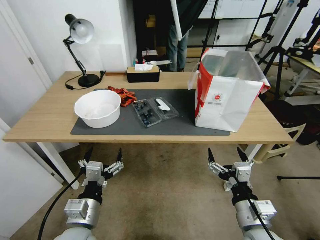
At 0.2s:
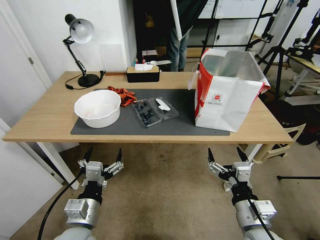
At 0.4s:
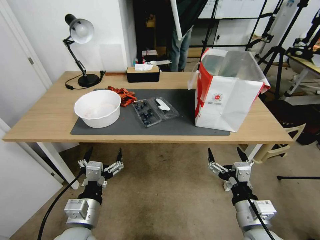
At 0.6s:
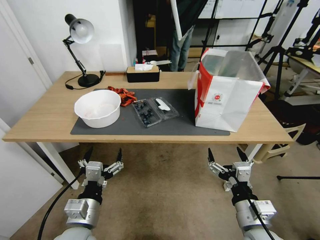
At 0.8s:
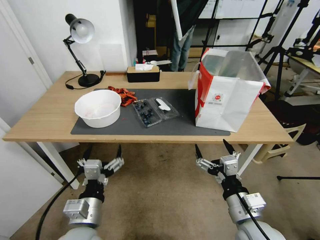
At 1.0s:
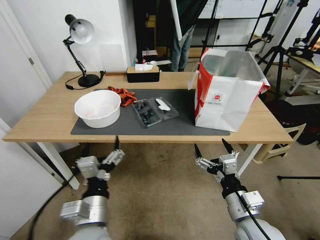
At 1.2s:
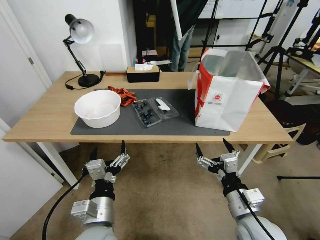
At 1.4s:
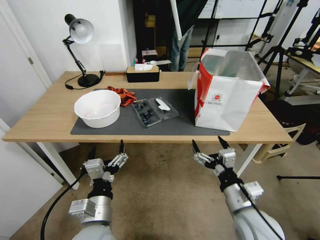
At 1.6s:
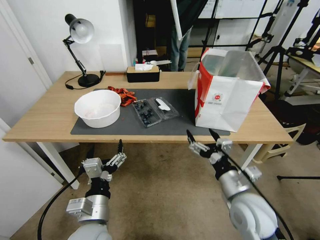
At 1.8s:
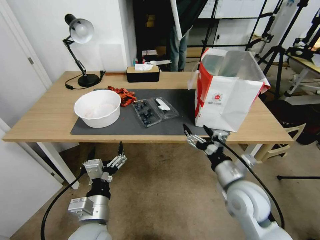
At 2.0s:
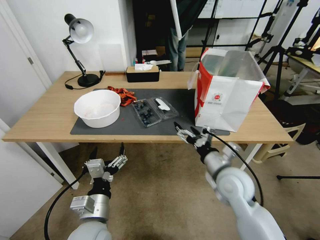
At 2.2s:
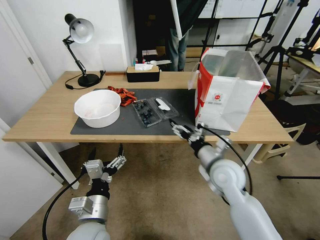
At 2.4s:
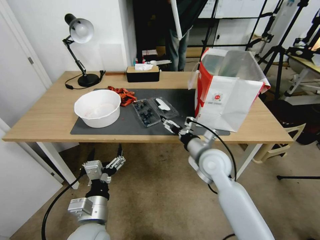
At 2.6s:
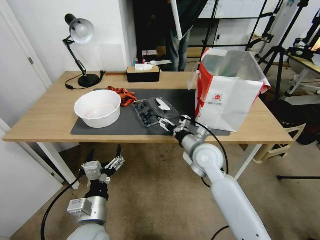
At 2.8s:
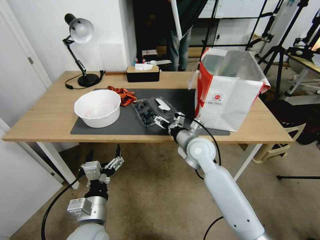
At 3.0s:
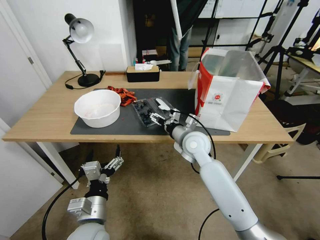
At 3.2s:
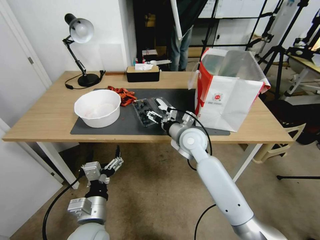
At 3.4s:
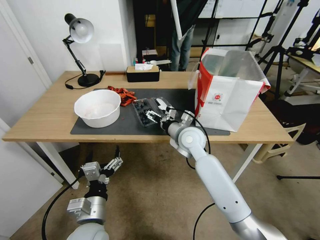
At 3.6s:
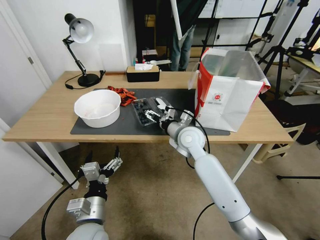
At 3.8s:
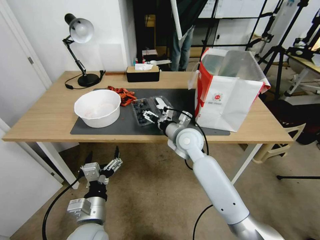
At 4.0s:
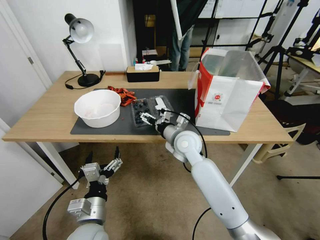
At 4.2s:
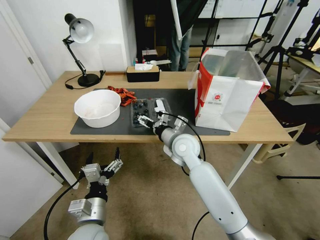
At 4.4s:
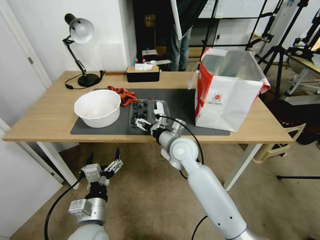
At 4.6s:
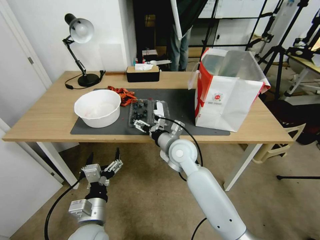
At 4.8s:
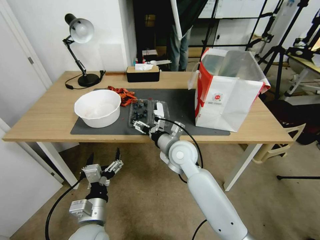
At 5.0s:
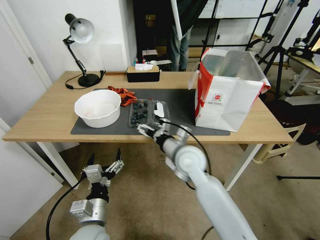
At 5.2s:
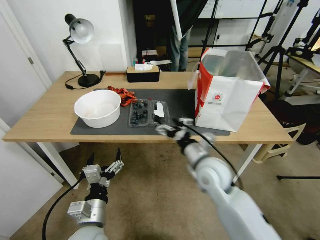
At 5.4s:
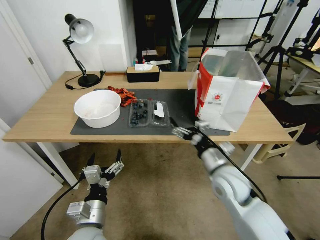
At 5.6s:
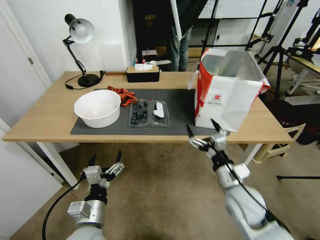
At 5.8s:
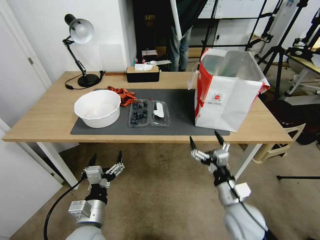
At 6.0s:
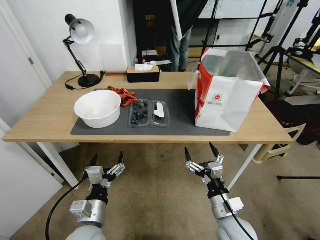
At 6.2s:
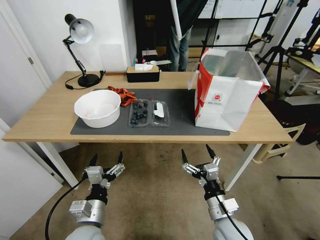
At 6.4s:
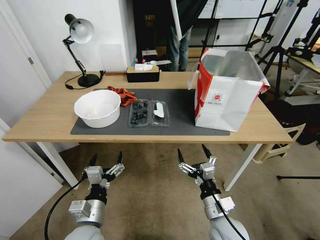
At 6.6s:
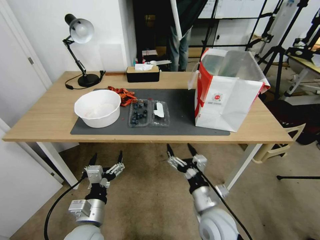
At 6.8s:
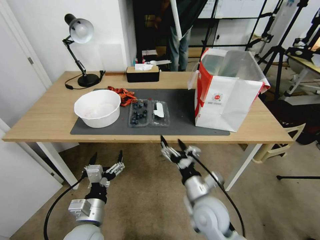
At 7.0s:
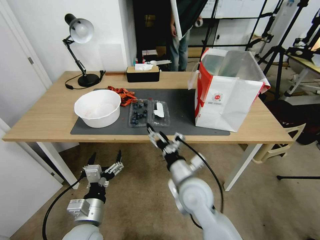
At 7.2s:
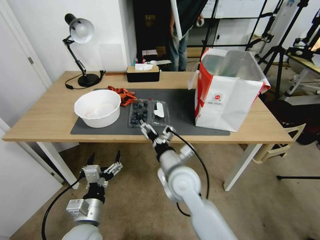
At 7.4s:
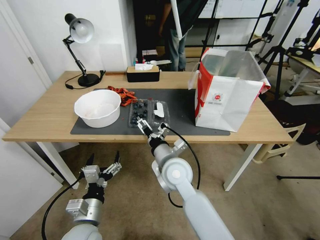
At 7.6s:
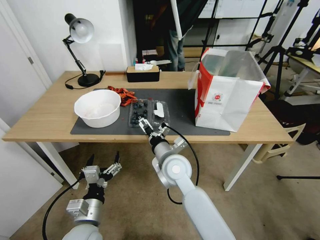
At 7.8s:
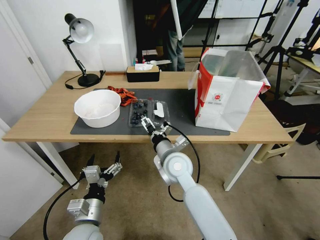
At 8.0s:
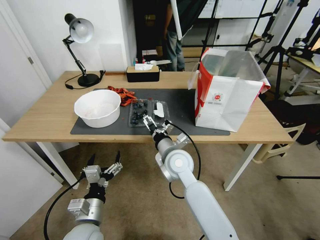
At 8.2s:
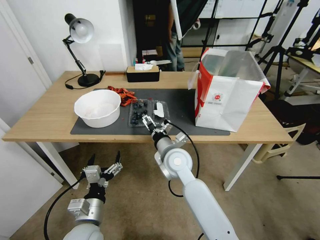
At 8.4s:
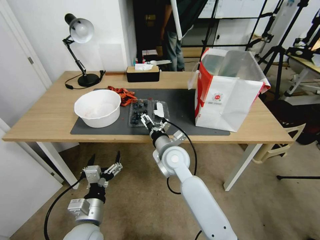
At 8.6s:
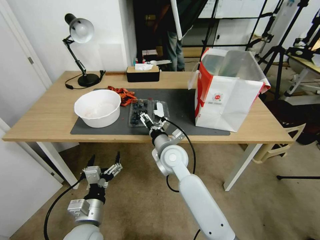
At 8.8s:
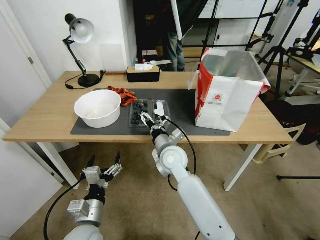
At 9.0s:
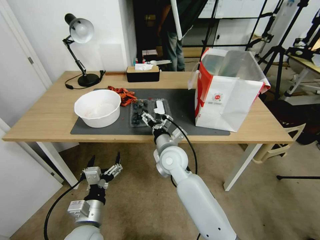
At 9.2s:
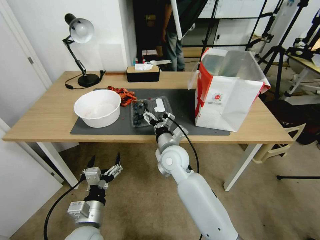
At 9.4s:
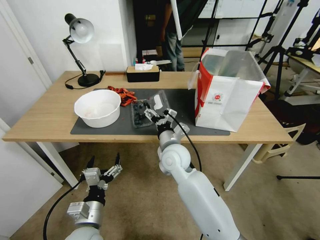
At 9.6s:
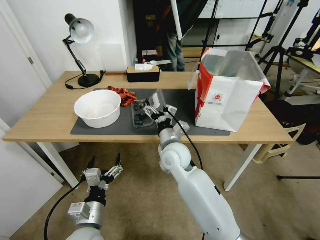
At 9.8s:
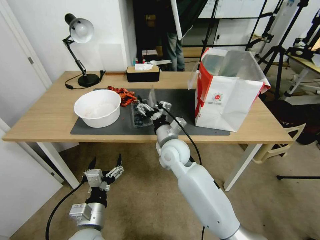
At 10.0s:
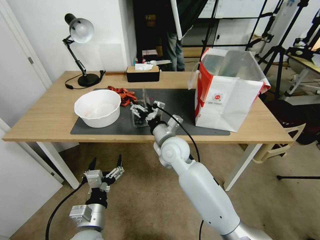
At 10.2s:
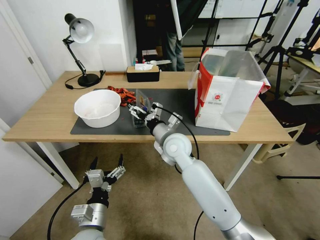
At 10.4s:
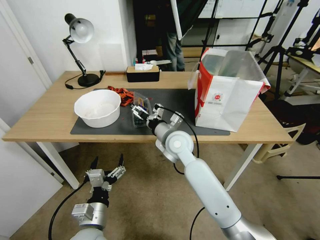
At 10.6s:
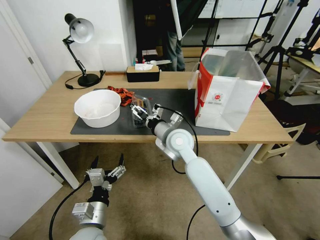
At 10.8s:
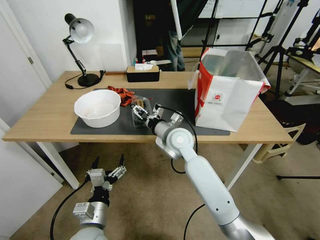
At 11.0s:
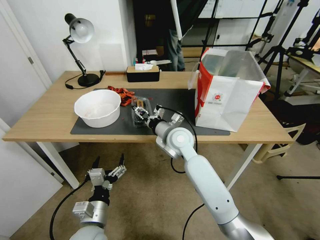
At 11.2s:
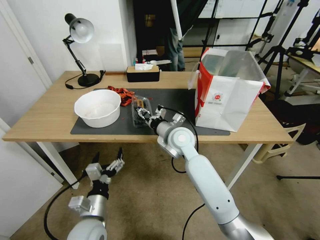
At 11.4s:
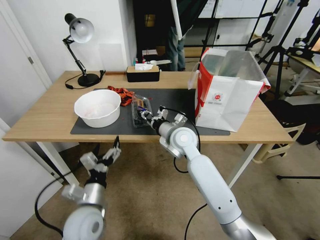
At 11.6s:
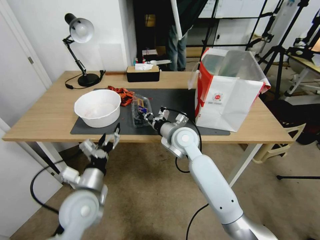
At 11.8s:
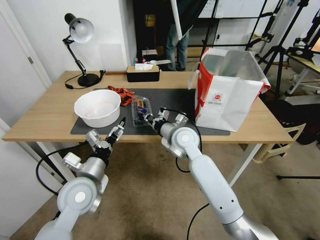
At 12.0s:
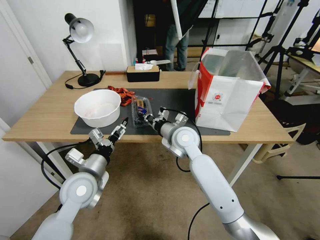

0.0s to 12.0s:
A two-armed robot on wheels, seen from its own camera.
Task of the whole recording: Close the takeout container lid, then place the container into the takeout bag.
1.6s to 3.0s: The right gripper moves forward and to the left, approximately 20 cm.
3.0s to 4.4s: There are only small adjustments of the grippers.
4.4s to 6.0s: The right gripper shifts some 25 cm backward, to the right and downward.
6.0s to 7.6s: The right gripper shifts about 25 cm to the left, forward and upward.
7.6s to 9.0s: There are only small adjustments of the grippers.
9.0s to 10.4s: The right gripper shifts by roughly 5 cm.
10.4s to 12.0s: The right gripper closes, while the left gripper heads forward and upward, covering some 15 cm.

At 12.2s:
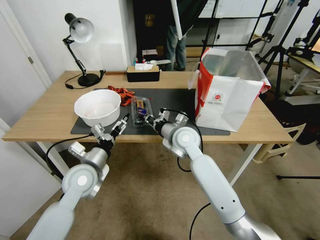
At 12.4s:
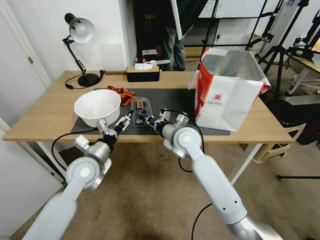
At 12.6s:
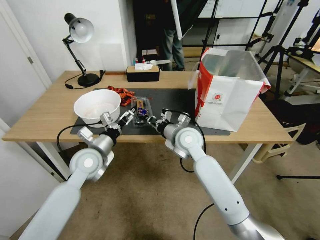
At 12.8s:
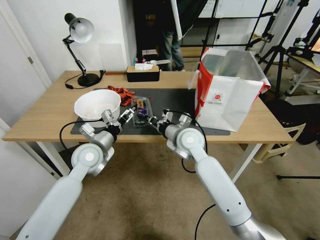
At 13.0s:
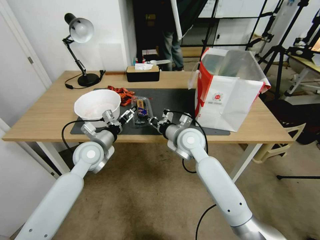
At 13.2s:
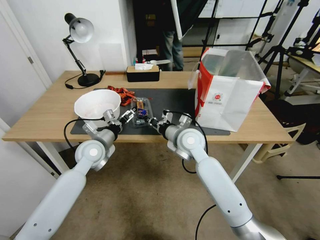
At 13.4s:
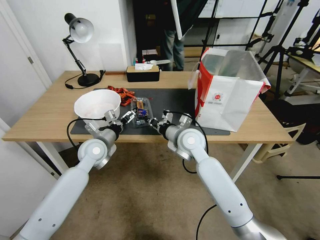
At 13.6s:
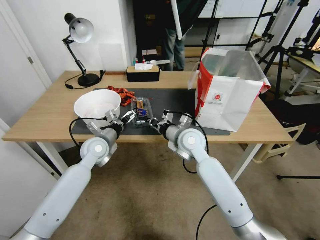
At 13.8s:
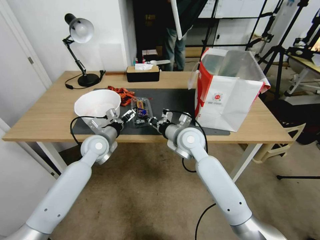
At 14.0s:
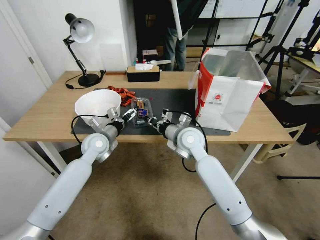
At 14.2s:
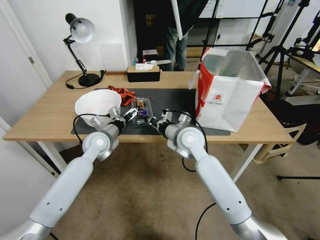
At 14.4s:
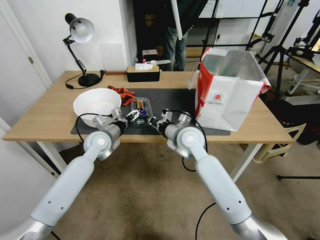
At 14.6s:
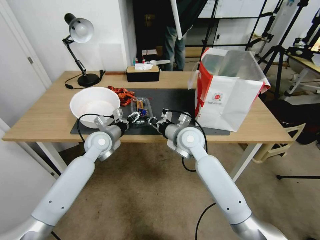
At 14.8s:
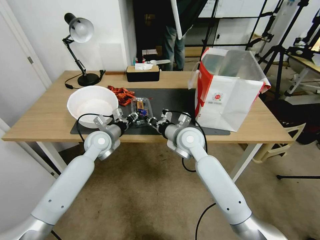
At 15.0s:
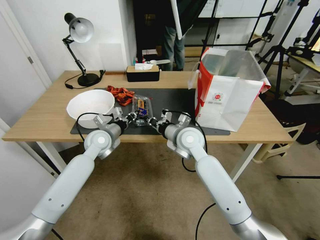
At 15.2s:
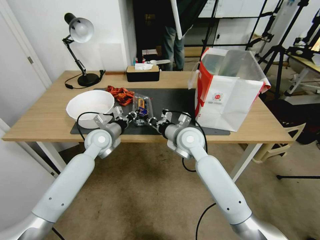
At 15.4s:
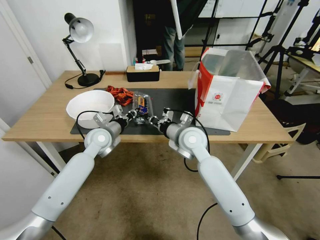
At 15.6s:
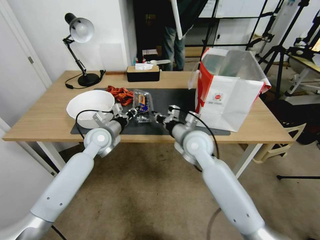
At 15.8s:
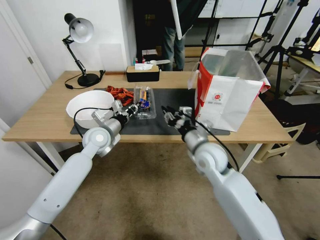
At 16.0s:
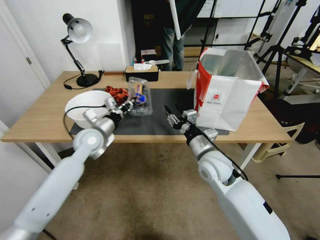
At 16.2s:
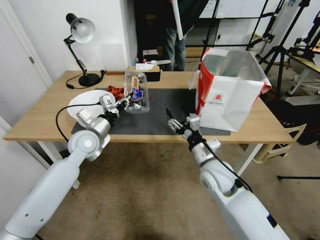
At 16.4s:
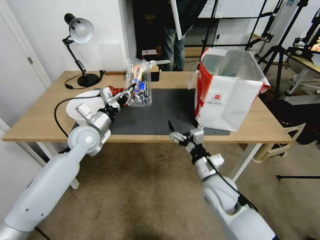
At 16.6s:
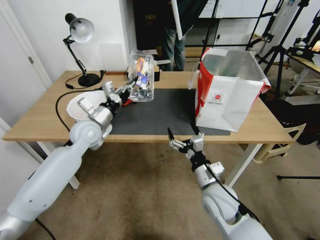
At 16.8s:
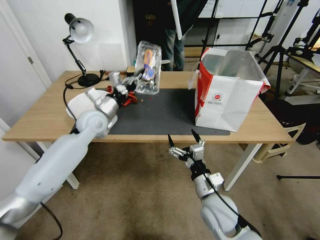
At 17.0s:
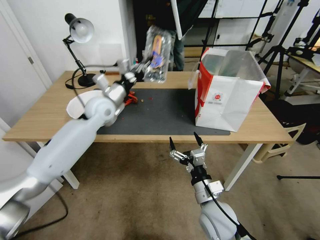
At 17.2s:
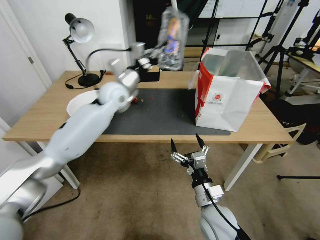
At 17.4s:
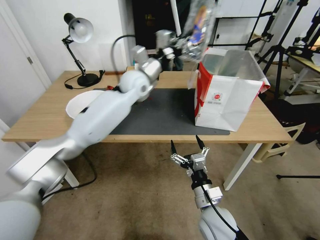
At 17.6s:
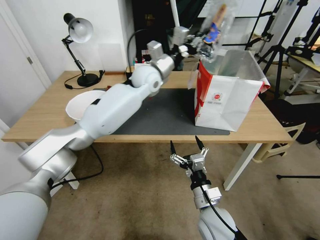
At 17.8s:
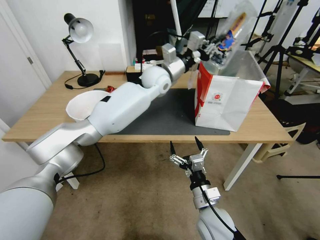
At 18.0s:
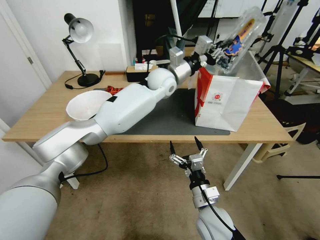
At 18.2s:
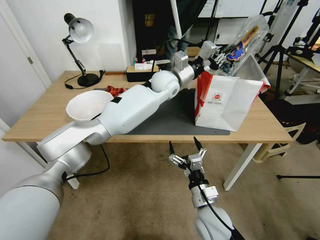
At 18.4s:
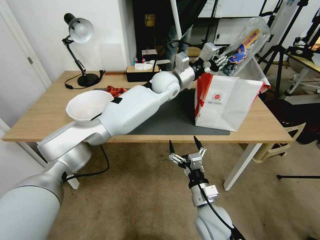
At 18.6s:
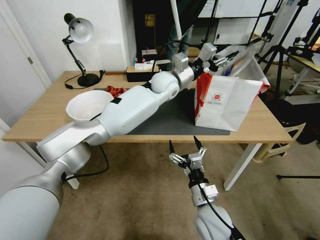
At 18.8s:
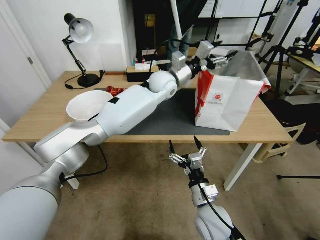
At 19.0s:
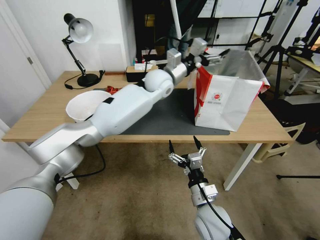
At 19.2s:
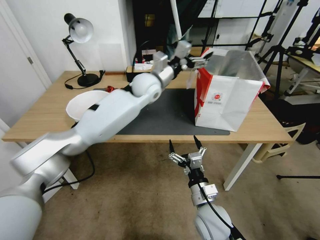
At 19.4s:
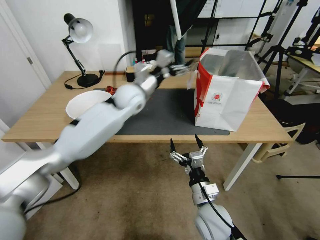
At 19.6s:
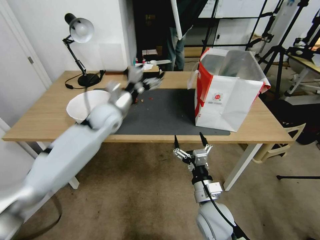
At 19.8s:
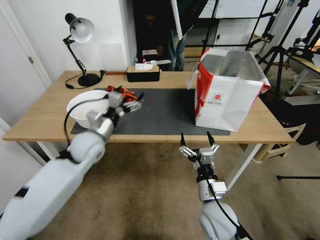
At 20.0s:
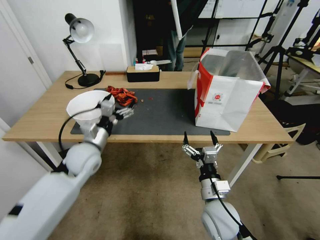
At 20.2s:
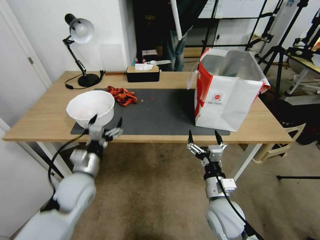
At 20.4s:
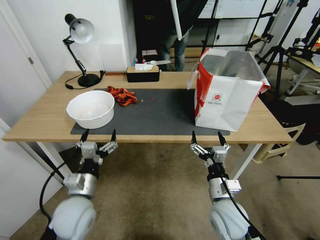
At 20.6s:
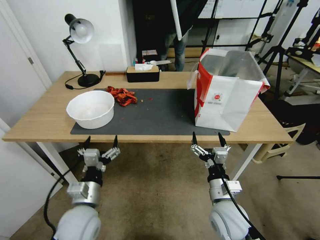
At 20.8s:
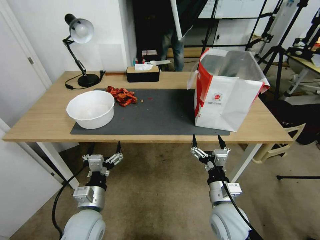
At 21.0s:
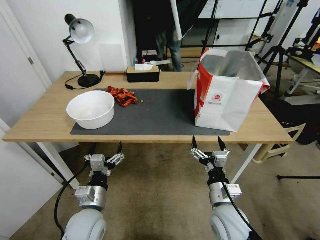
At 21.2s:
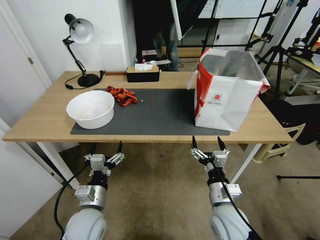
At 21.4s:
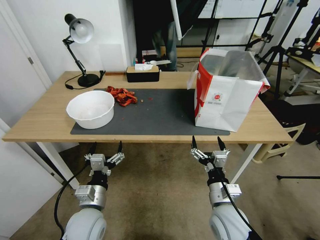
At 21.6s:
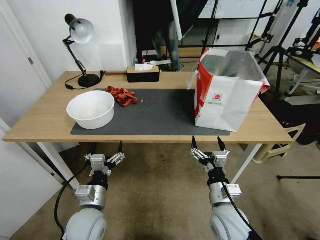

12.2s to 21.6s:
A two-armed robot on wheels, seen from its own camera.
Task of the whole recording: Close the takeout container lid, then place the container into the takeout bag.
12.2s to 13.8s: The left gripper heads forward, covering roughly 10 cm.
13.8s to 15.4s: The left gripper closes.
15.4s to 17.0s: The left gripper travels upward by roughly 10 cm. Meanwhile the right gripper moves backward and downward, about 25 cm, and opens up.
17.0s to 18.4s: The left gripper shifts some 20 cm to the right.
18.4s to 20.0s: The left gripper heads to the left, backward and downward, covering some 35 cm, and opens up.
20.0s to 21.6s: The left gripper shifts about 15 cm backward and downward.
